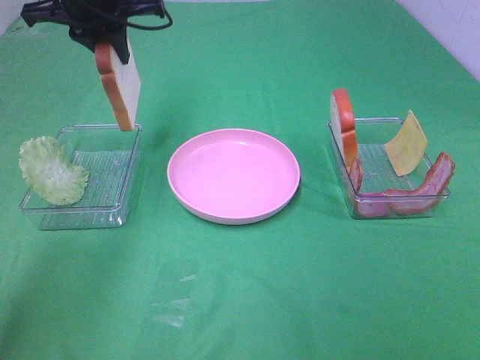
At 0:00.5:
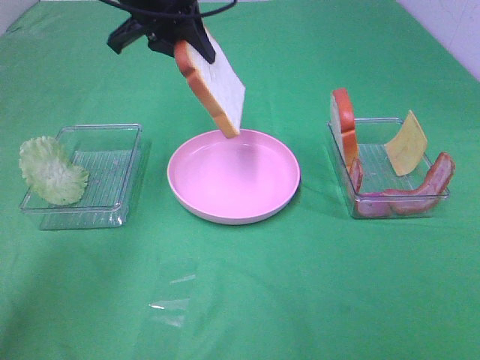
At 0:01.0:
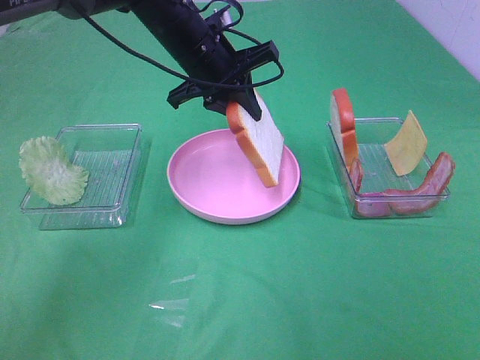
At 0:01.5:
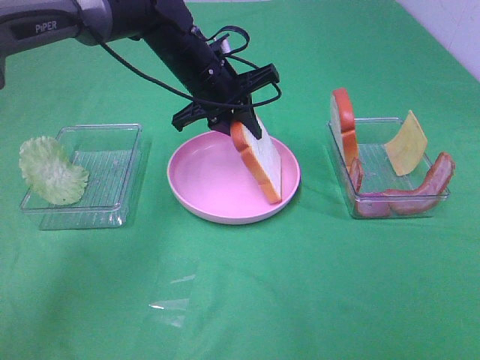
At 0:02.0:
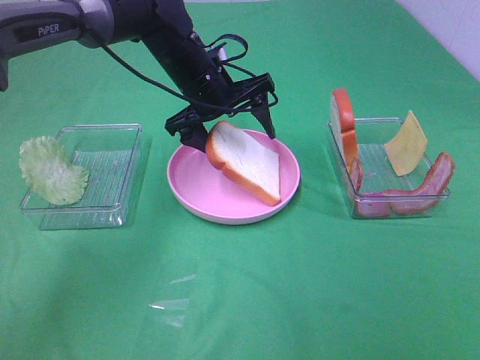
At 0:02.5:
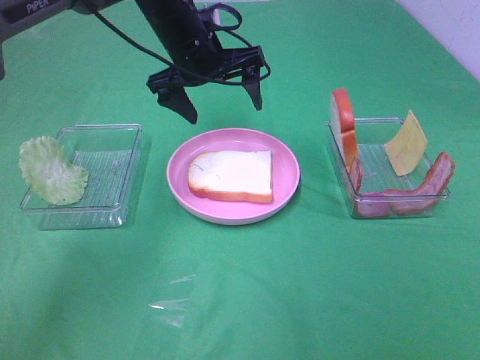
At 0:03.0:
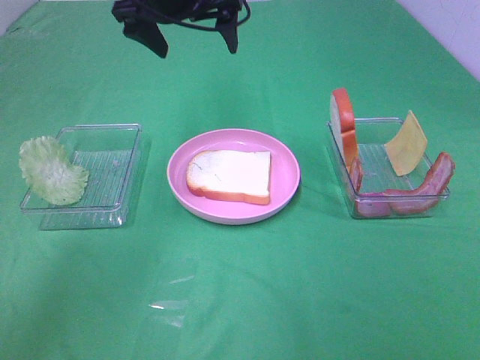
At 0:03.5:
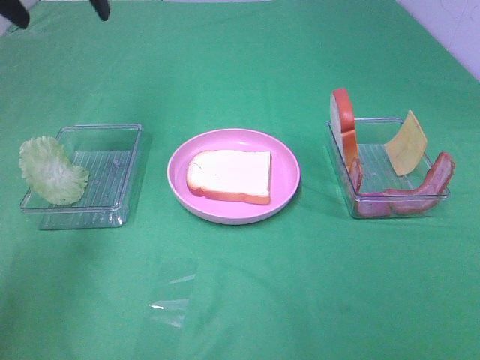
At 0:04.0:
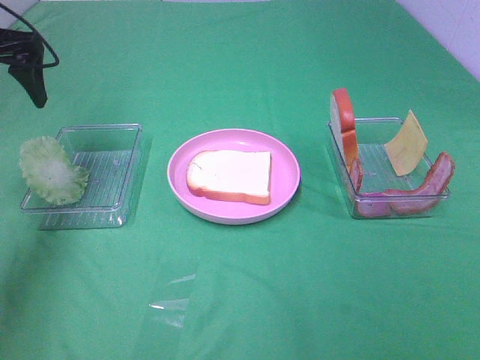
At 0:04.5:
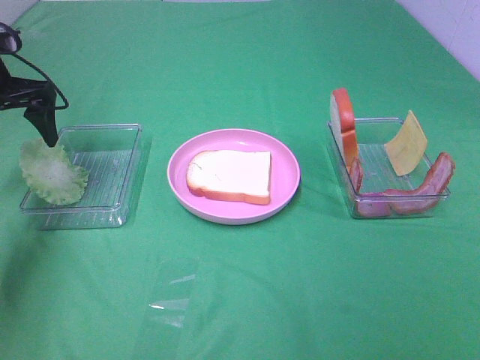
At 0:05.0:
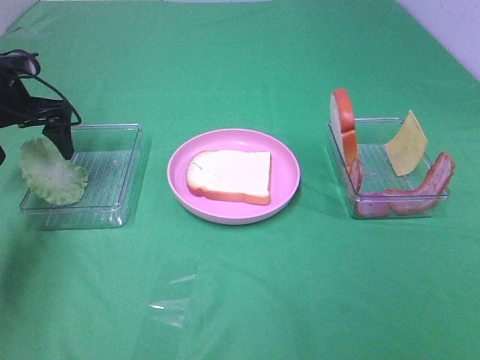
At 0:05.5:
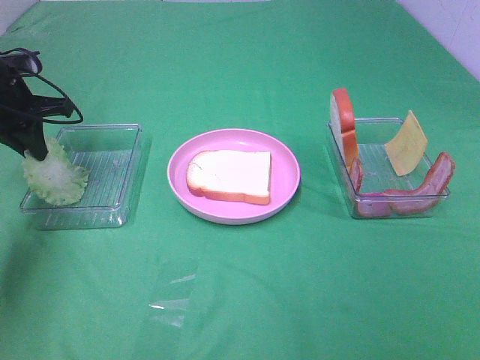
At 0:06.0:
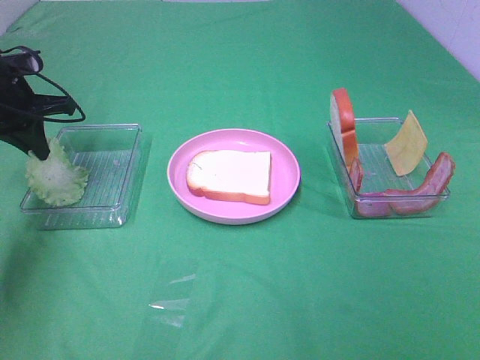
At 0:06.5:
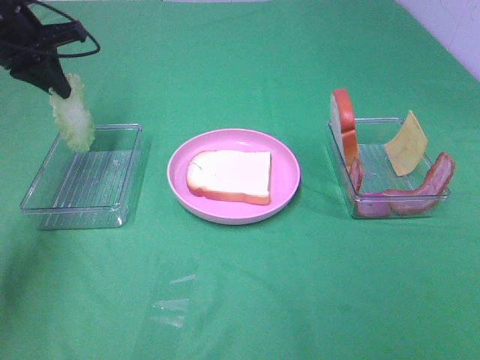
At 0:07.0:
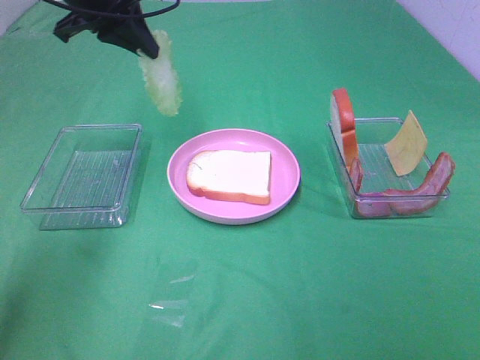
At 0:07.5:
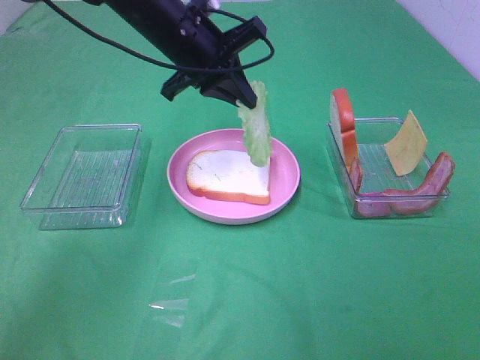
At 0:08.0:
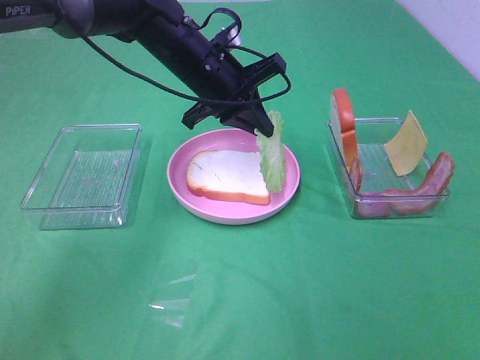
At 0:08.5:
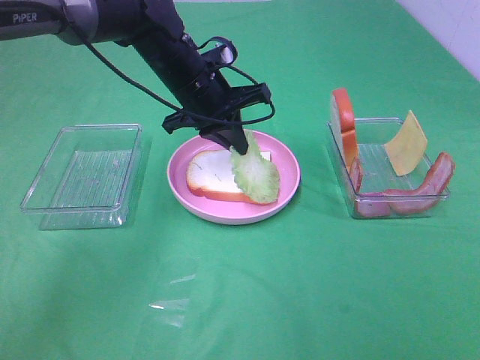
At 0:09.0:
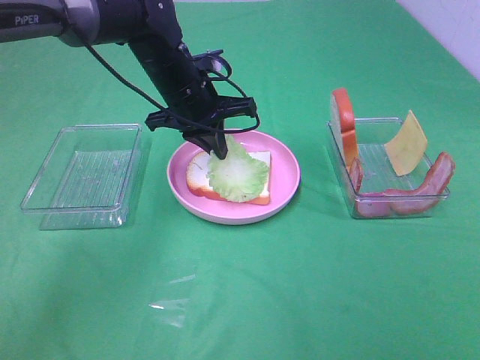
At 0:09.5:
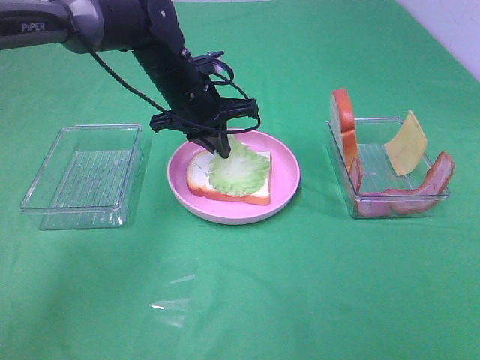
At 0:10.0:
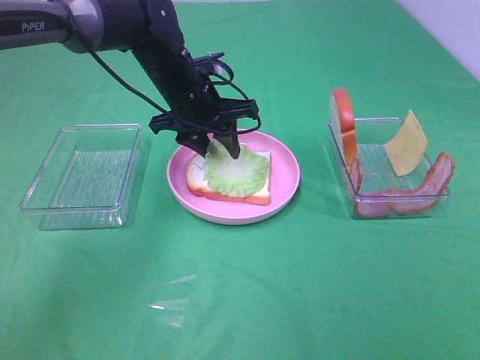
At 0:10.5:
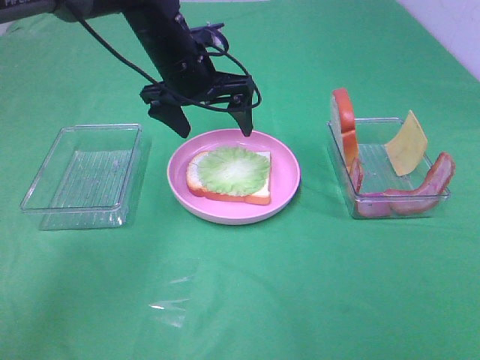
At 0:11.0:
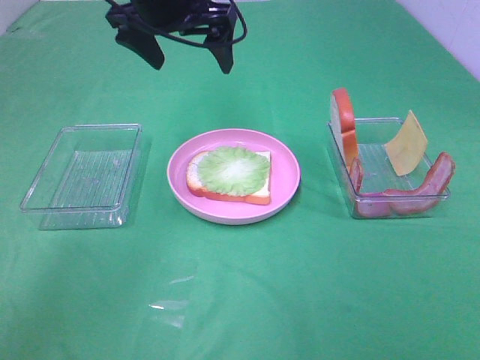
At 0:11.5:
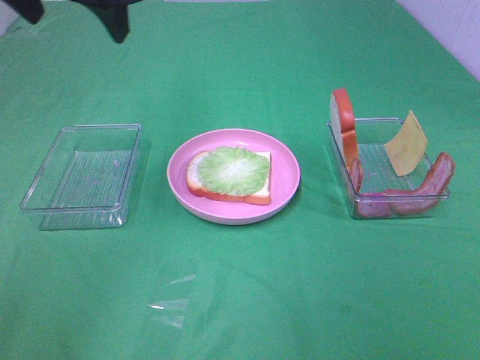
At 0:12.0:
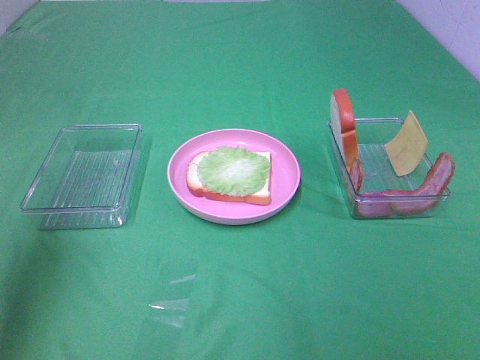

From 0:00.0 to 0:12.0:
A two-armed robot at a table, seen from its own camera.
Task of the whole recording: Make sandwiches.
Step, from 0:00.0 to 0:02.5: Left hand:place the bread slice on the plate.
Step, from 0:03.0 to 0:06.0: Left hand:grab the lettuce slice.
Step, from 0:06.5 to 0:10.0: Left hand:place the lettuce slice on the bread slice.
From 0:00.0 to 0:02.0: The left gripper shifts about 15 cm downward and to the right, and opens its fingers.
From 0:02.0 to 0:04.0: The left gripper travels to the left by about 25 cm.
From 0:04.0 to 0:06.0: The left gripper travels downward by approximately 10 cm, and closes.
From 0:06.0 to 0:08.0: The left gripper goes some 25 cm to the right.
From 0:08.0 to 0:10.0: The left gripper opens its fingers.
From 0:10.0 to 0:12.0: The left gripper travels to the left, backward and upward by roughly 40 cm, and opens its fingers.

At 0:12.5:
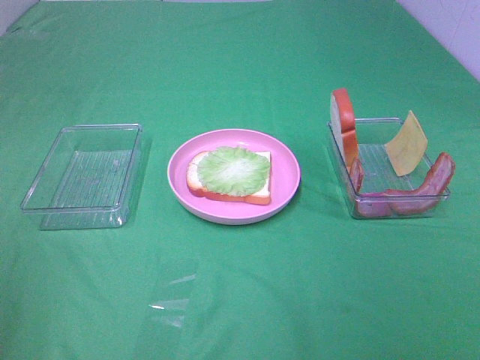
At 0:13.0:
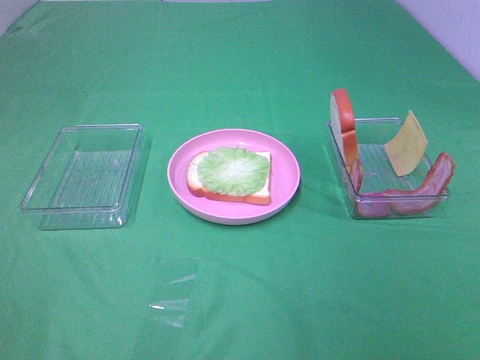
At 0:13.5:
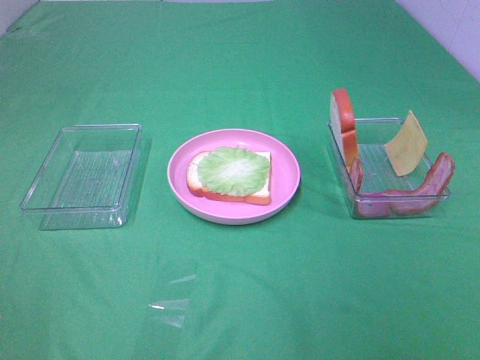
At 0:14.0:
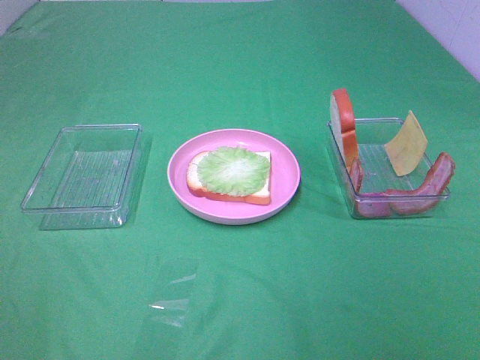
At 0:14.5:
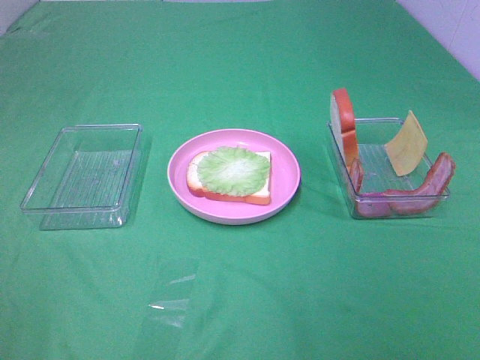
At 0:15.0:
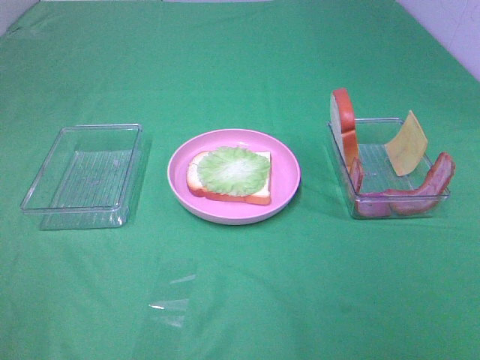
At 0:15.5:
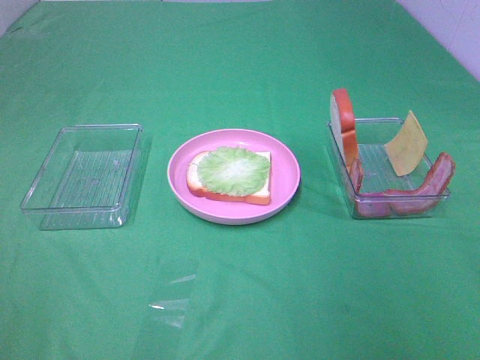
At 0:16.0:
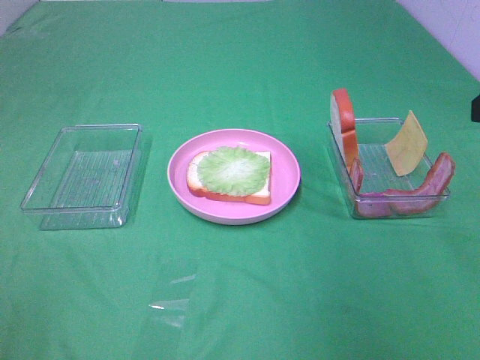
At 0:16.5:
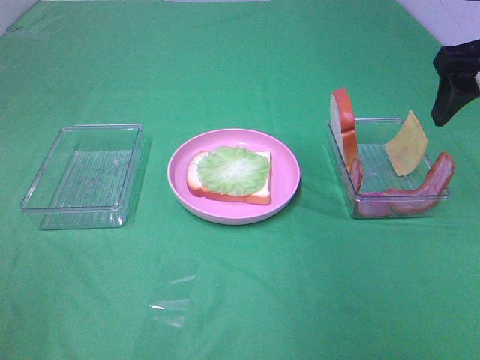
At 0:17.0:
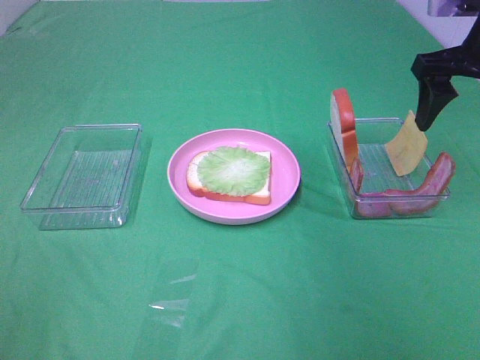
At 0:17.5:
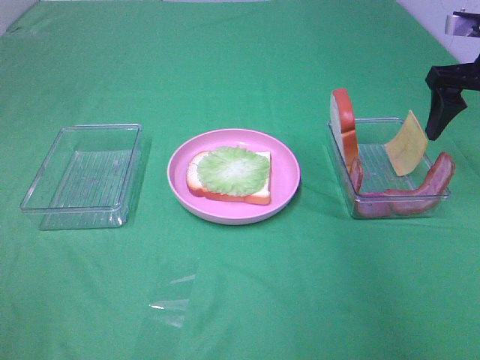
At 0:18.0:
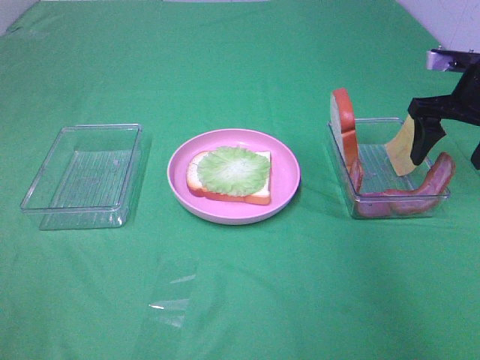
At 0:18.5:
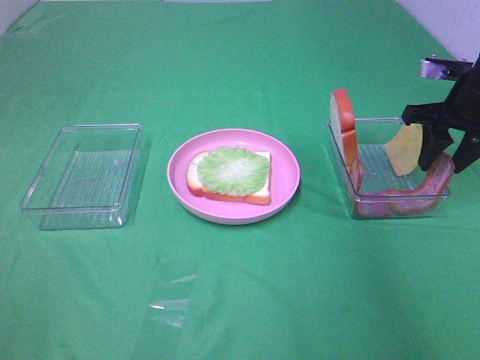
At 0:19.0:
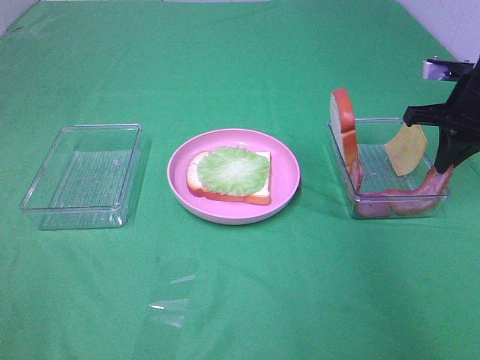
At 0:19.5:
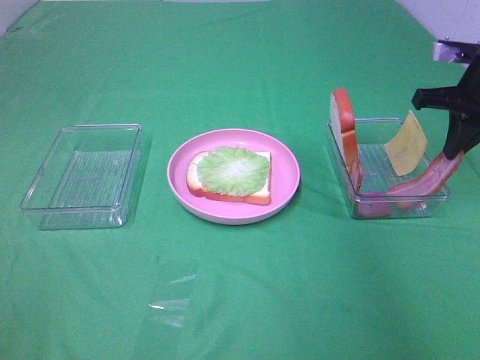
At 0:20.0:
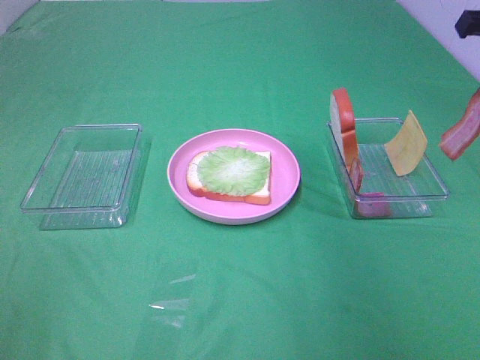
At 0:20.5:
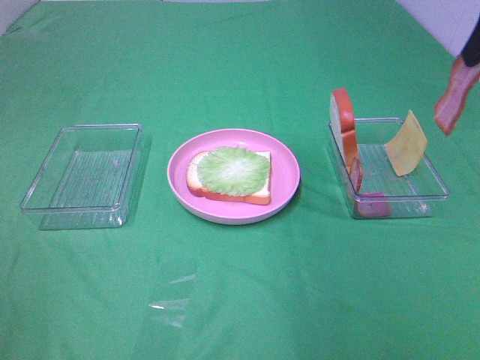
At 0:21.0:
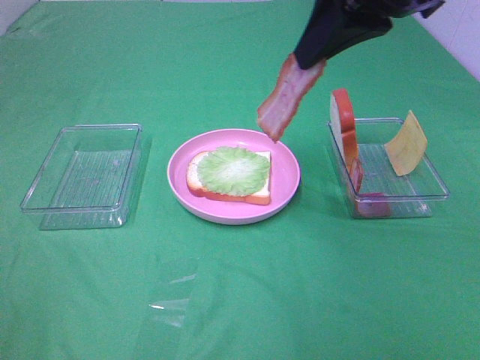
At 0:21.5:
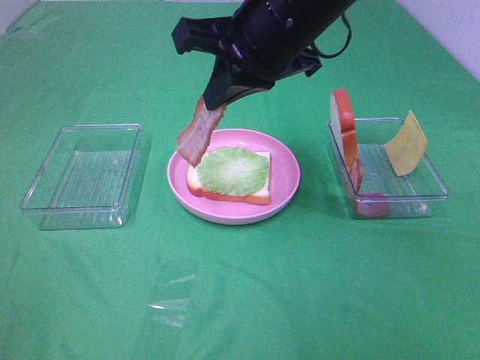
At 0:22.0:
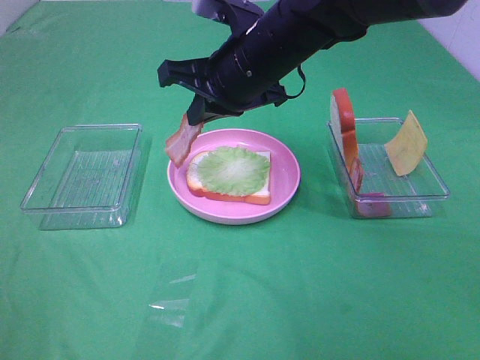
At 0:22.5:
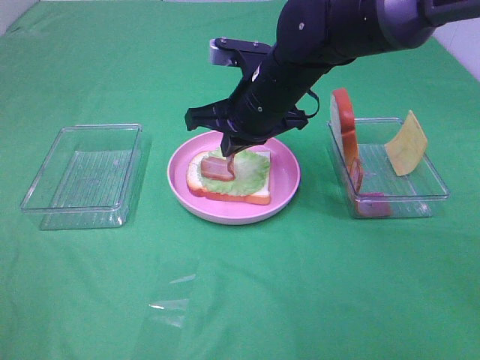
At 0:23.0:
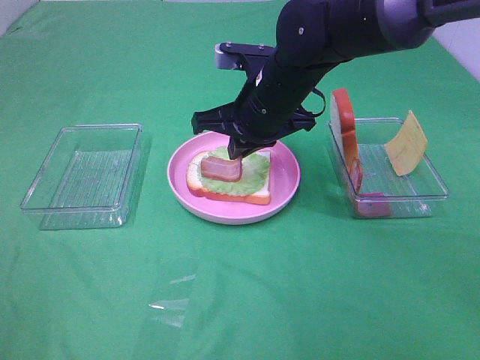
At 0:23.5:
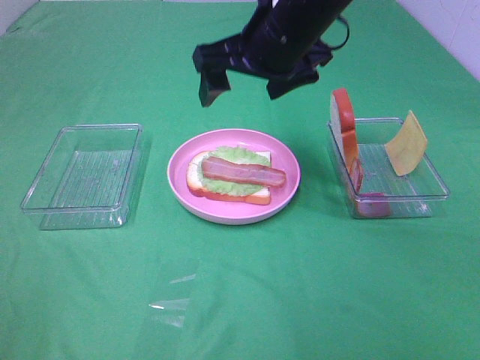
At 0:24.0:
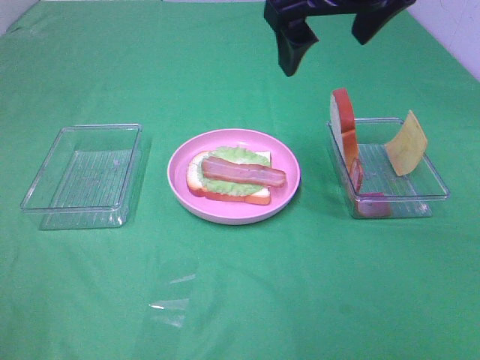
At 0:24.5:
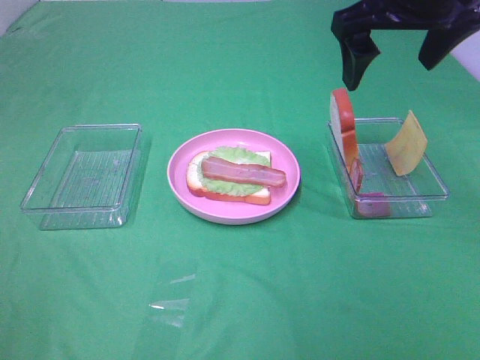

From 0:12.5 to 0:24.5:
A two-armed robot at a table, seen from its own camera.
Task of the whole recording: Make sandwiches.
Step, from 0:12.5 to 0:19.5: Right hand:grab the bacon.
Step, from 0:20.0 to 0:23.0: Right hand:place bacon on lettuce slice.
From 0:14.5 to 0:16.5: The right gripper goes roughly 30 cm forward.
From 0:16.5 to 0:18.5: The right gripper moves downward and forward, approximately 15 cm, and closes its fingers.
From 0:18.5 to 0:20.5: The right gripper goes approximately 20 cm upward and backward, and closes up.
From 0:20.5 to 0:22.5: The right gripper goes about 30 cm to the left and downward.
From 0:22.5 to 0:24.5: The right gripper goes roughly 20 cm upward and to the right, and opens.

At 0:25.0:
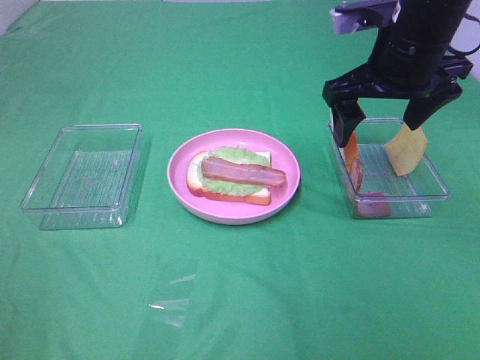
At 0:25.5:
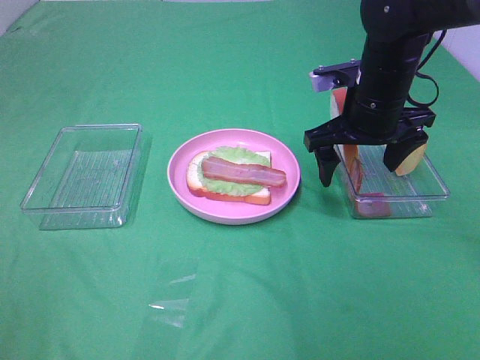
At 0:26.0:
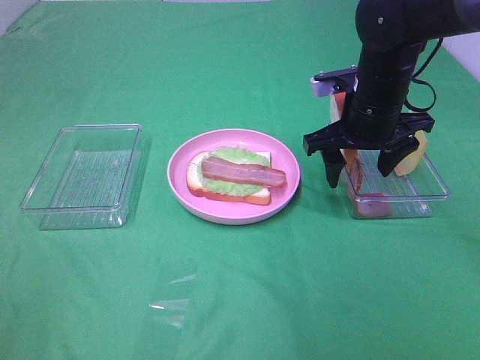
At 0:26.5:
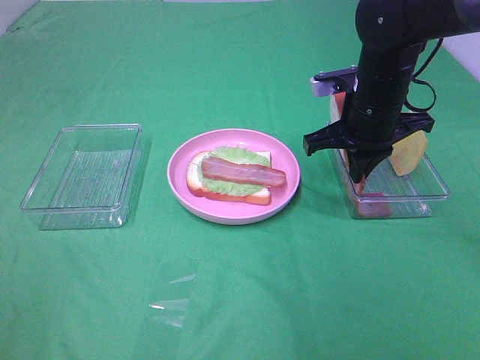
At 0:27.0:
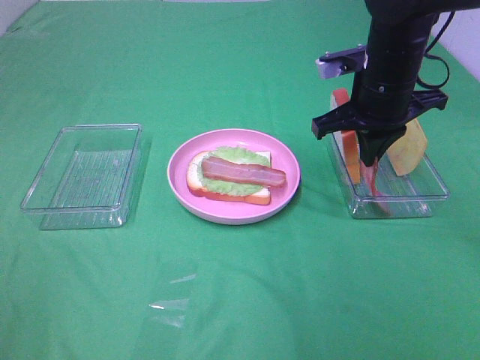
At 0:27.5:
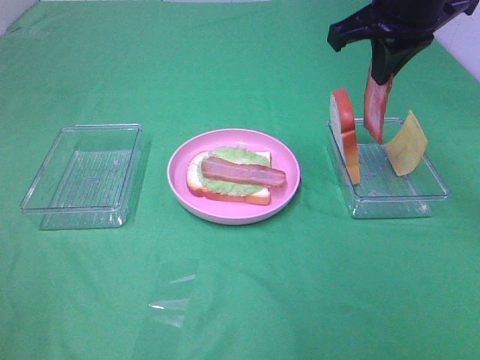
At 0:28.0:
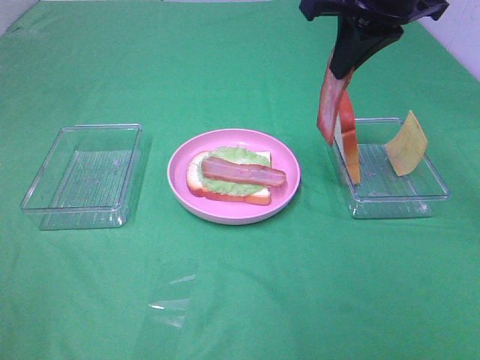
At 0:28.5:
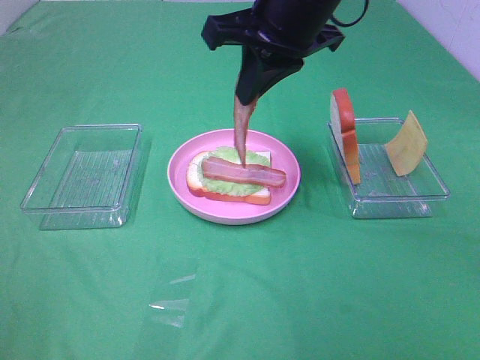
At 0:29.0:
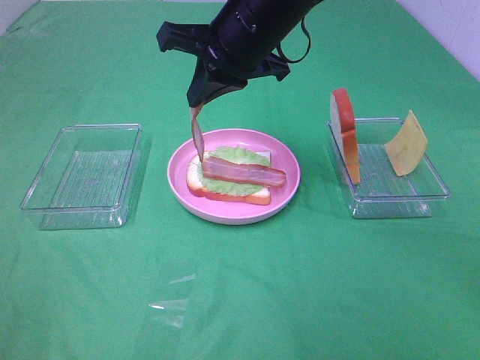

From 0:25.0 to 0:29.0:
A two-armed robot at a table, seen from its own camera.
Task of the whole recording: Make sandwiches.
From 0:25.0 to 0:27.0: The right gripper closes.
From 0:27.0 to 0:29.0: The right gripper travels to the left by about 15 cm.
